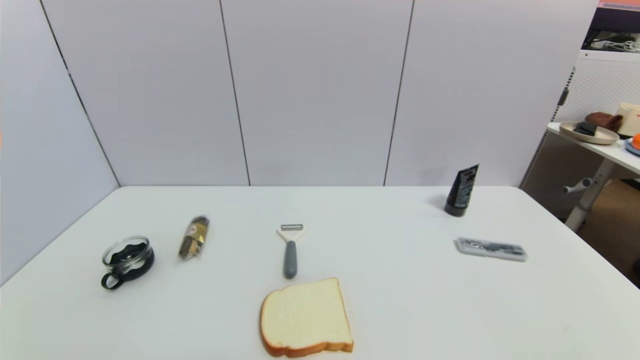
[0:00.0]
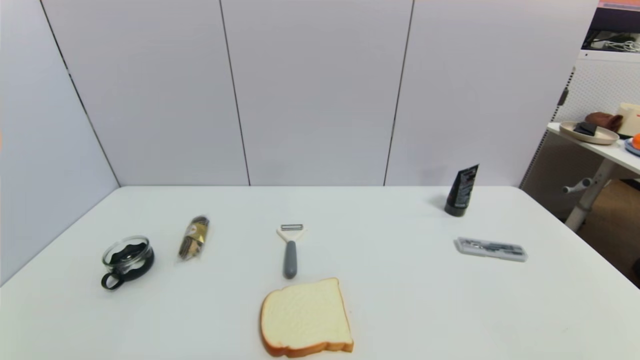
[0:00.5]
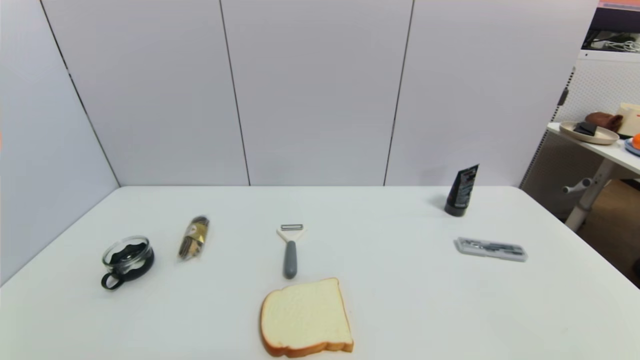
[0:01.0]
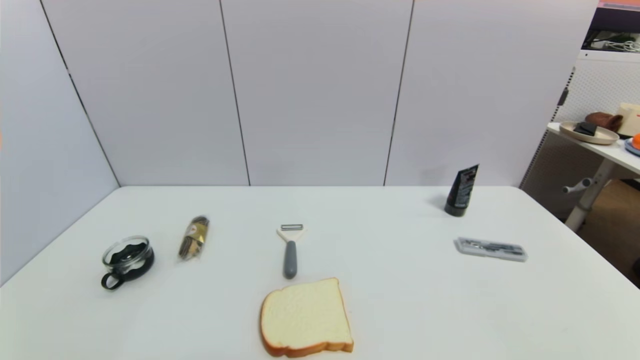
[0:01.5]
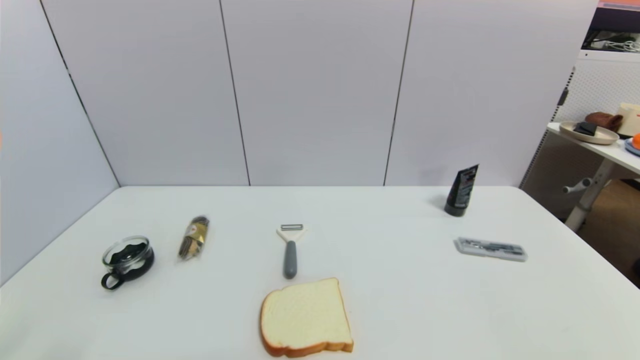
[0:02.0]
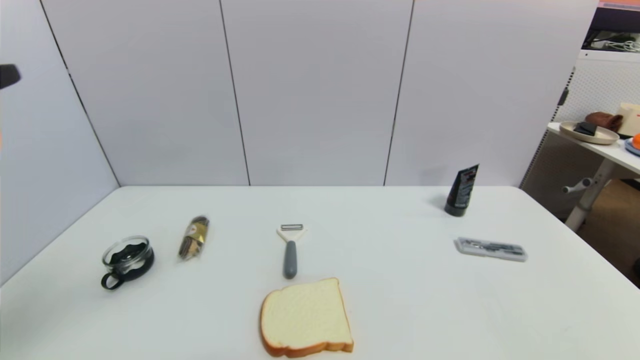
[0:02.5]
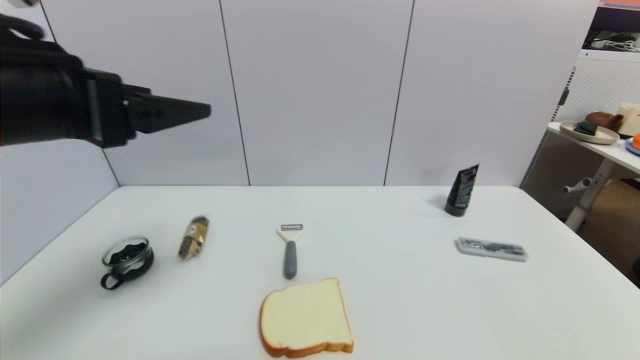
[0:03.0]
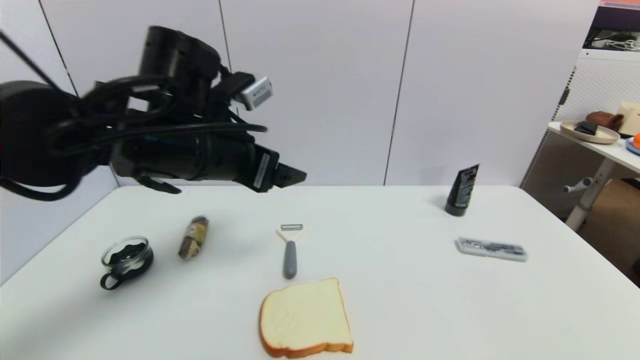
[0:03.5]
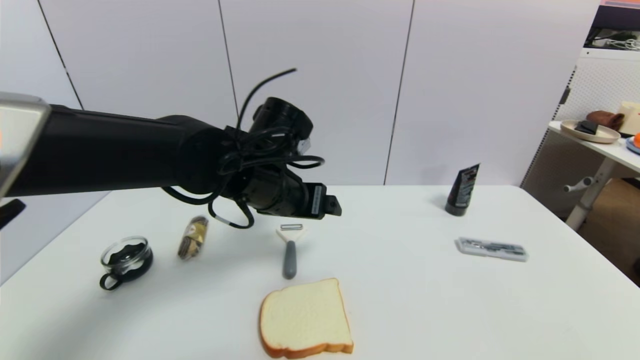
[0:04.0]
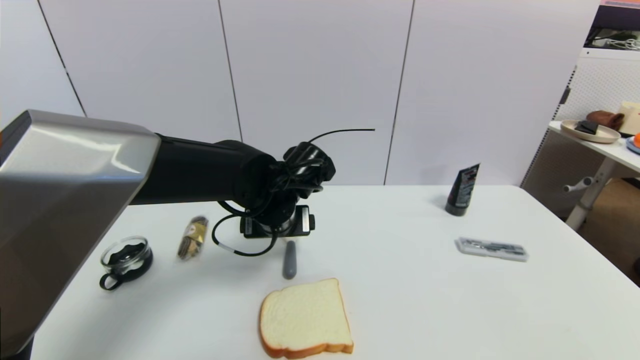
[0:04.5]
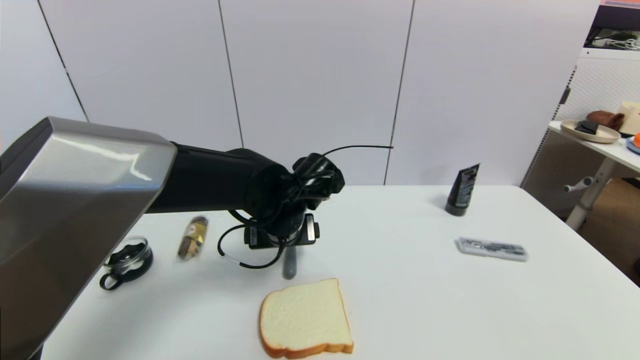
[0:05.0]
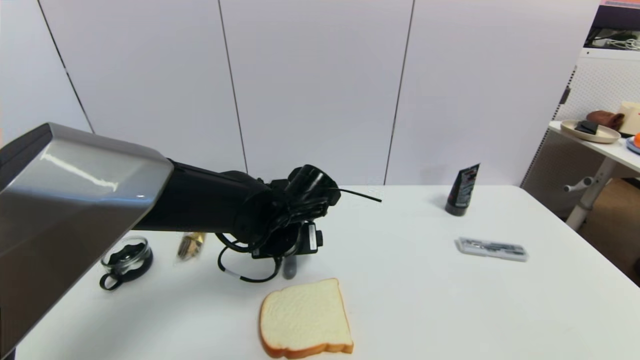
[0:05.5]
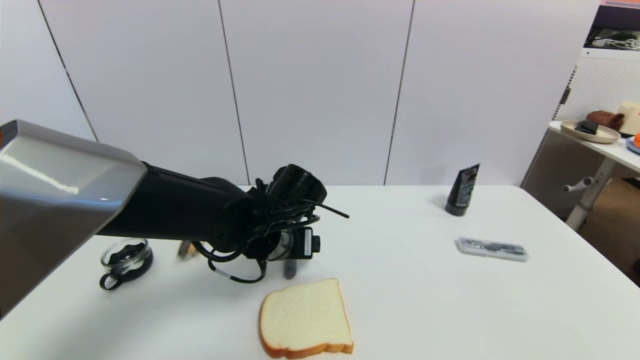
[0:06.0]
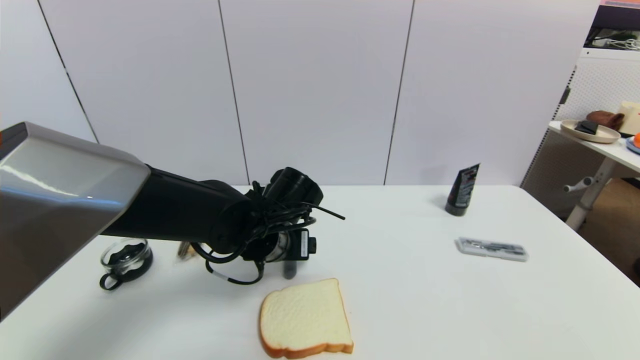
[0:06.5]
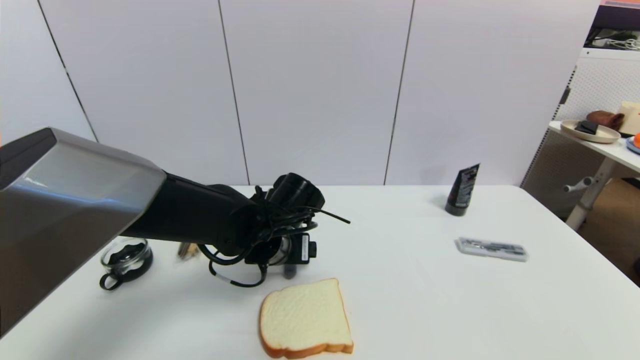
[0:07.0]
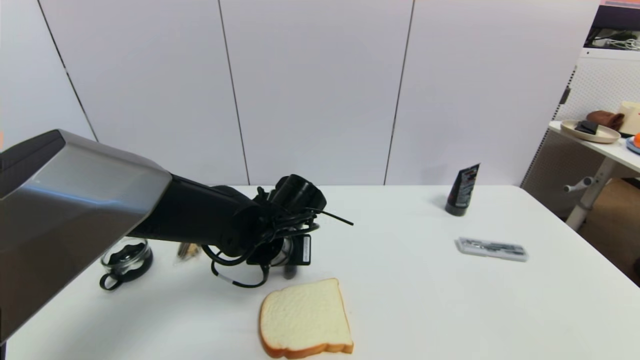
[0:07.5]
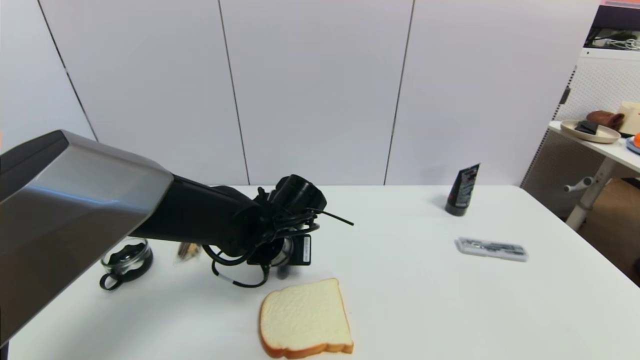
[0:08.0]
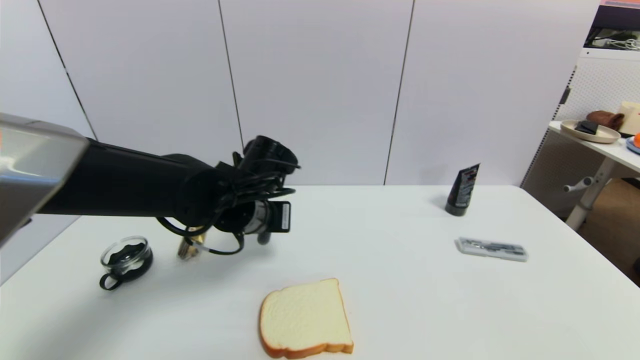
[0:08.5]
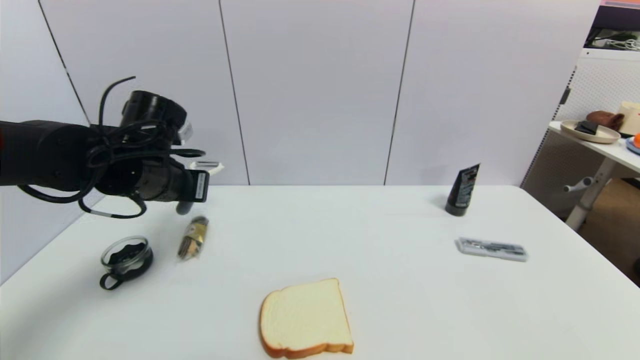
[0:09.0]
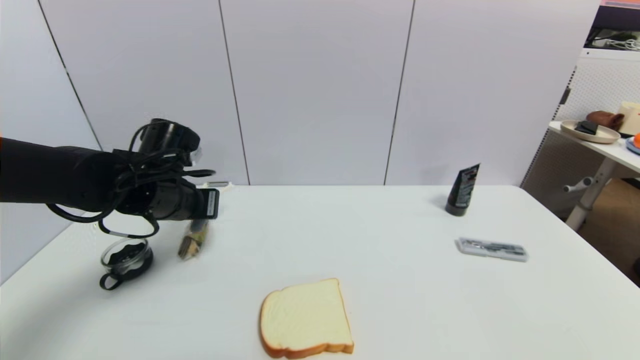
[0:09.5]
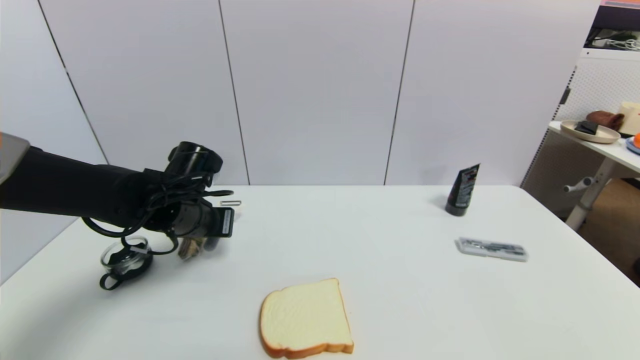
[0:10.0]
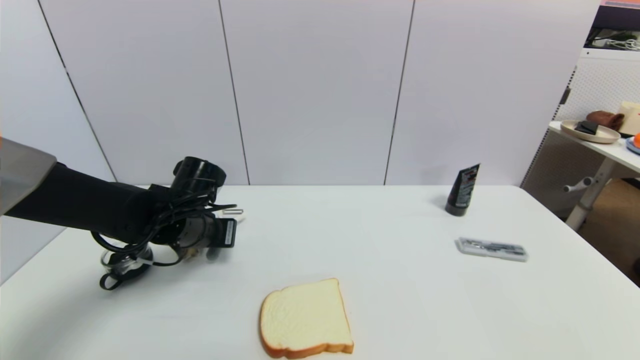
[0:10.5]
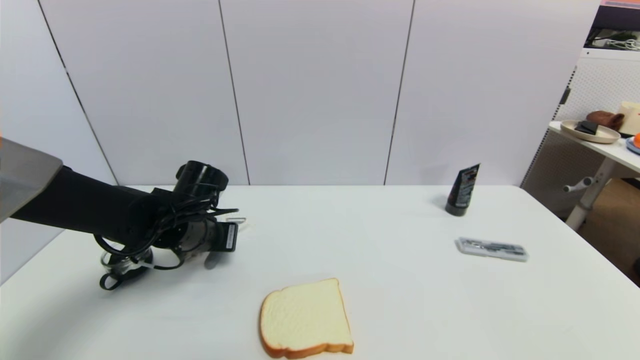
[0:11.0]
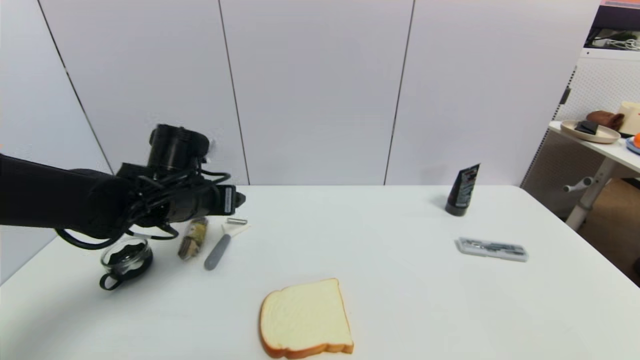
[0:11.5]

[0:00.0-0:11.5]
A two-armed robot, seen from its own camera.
Step, 0:03.0 to 0:08.0: Grasp the peeler with left gripper.
Step, 0:08.5 to 0:11.0: Place the peeler on the table with left gripper.
0:02.0 to 0:04.0: The left gripper travels forward and to the right by approximately 40 cm.
0:04.0 to 0:06.0: The left gripper travels downward by approximately 10 cm.
0:06.0 to 0:07.5: The left gripper closes its fingers.
0:07.5 to 0:09.5: The left gripper is displaced to the left and upward by some 15 cm, and closes its fingers.
0:09.5 to 0:11.5: The left gripper opens.

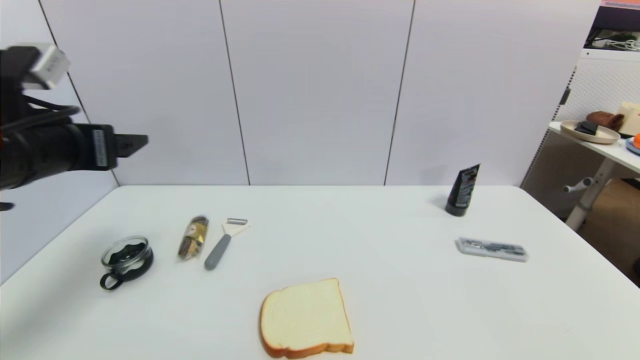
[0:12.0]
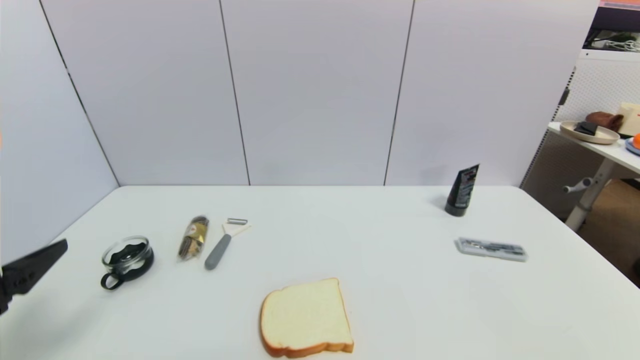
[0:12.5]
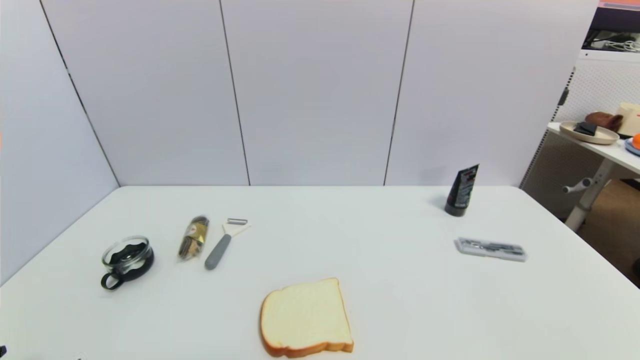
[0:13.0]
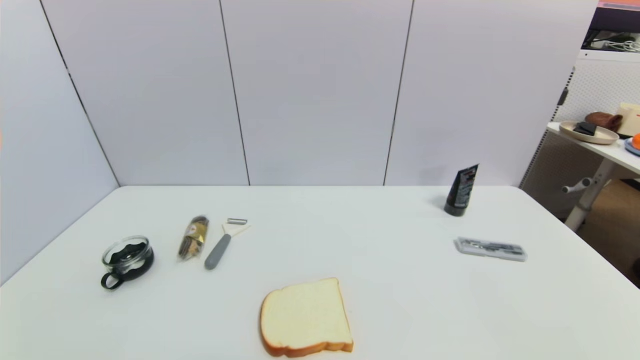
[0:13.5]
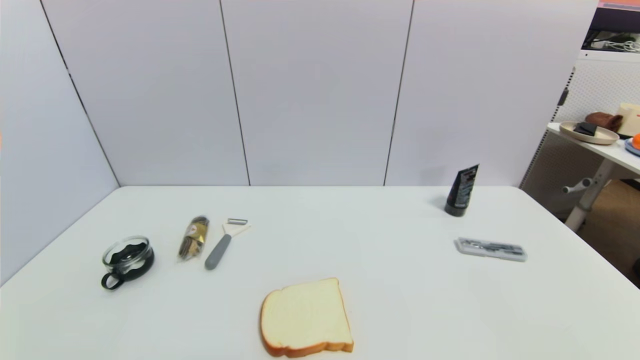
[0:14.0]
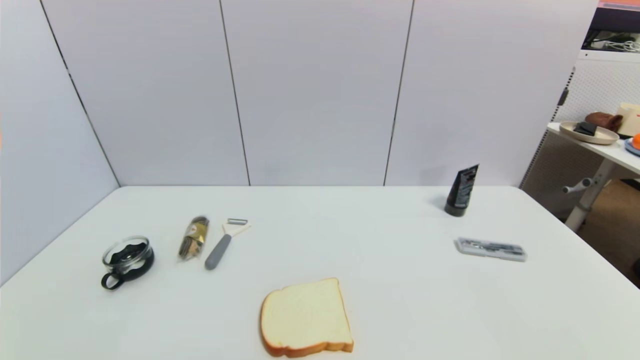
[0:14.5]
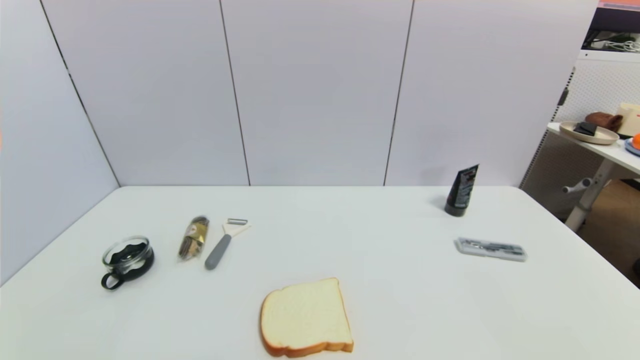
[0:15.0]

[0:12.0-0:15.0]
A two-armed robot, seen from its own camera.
0:12.0 to 0:13.5: The left gripper shifts roughly 30 cm backward and downward.
